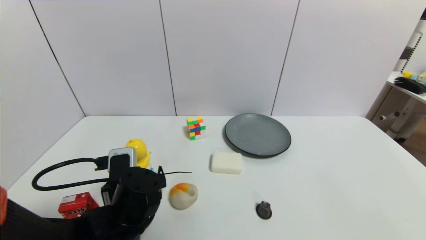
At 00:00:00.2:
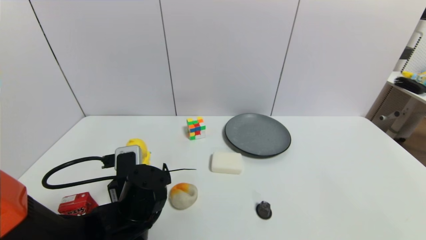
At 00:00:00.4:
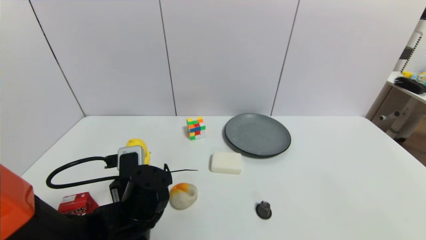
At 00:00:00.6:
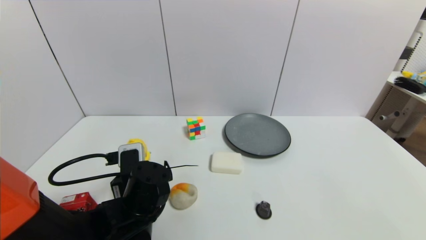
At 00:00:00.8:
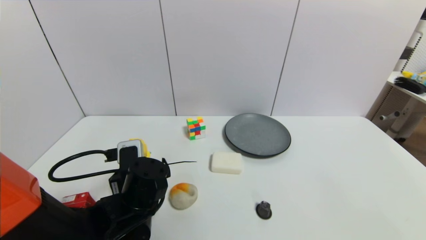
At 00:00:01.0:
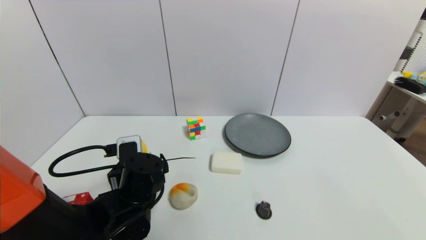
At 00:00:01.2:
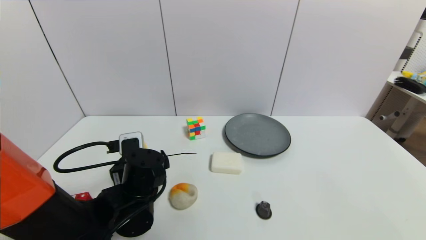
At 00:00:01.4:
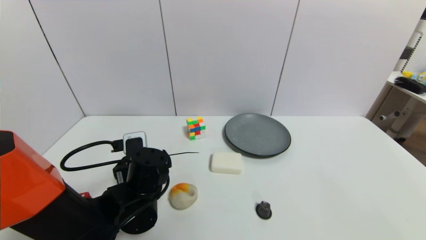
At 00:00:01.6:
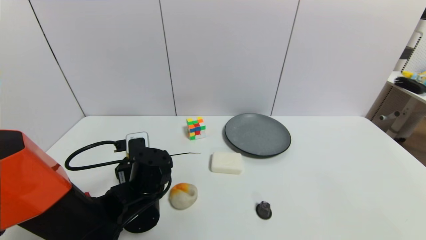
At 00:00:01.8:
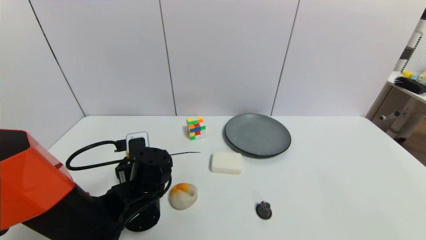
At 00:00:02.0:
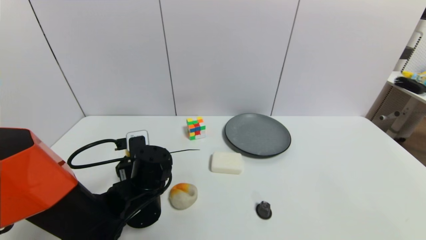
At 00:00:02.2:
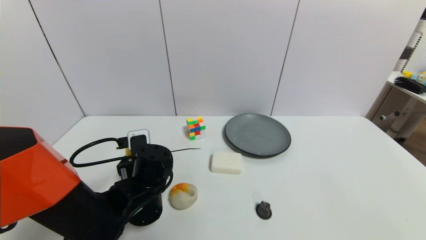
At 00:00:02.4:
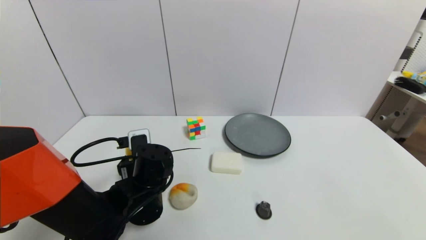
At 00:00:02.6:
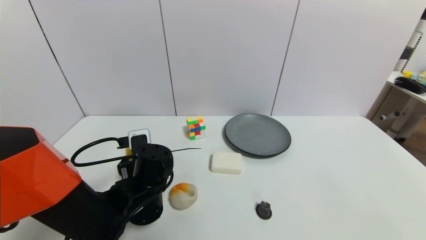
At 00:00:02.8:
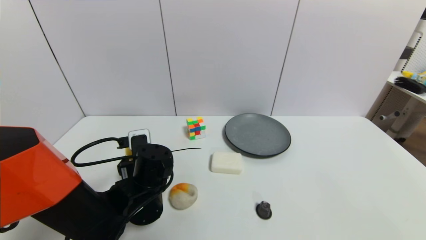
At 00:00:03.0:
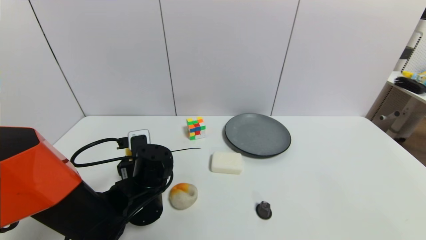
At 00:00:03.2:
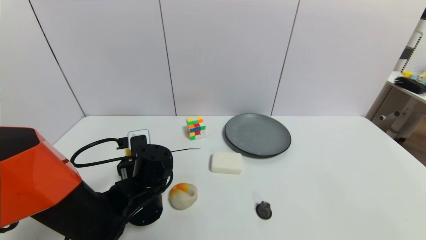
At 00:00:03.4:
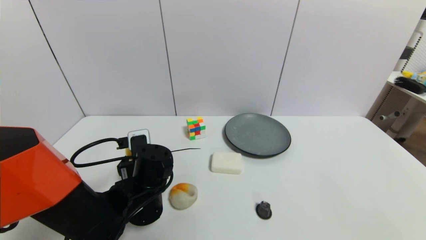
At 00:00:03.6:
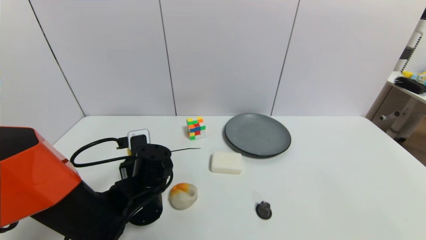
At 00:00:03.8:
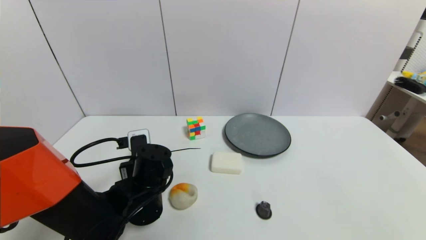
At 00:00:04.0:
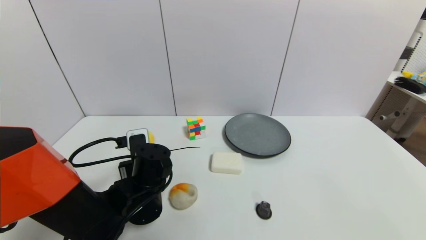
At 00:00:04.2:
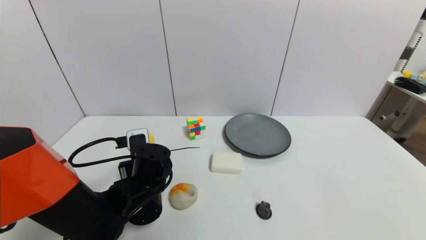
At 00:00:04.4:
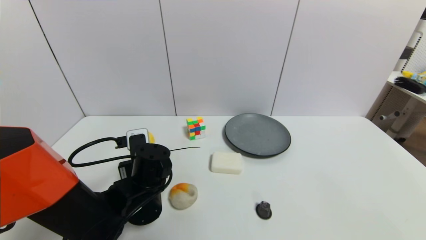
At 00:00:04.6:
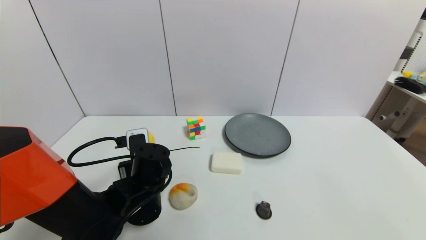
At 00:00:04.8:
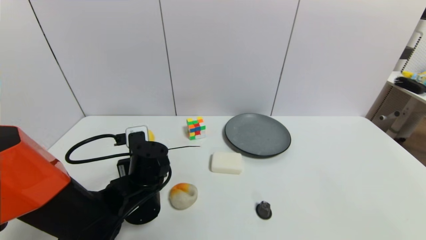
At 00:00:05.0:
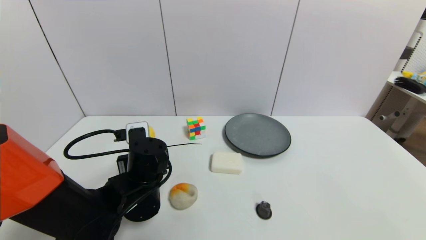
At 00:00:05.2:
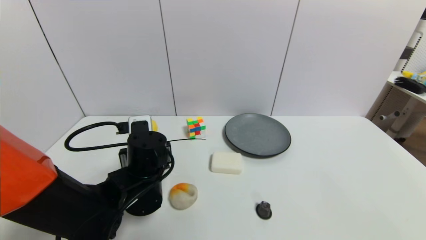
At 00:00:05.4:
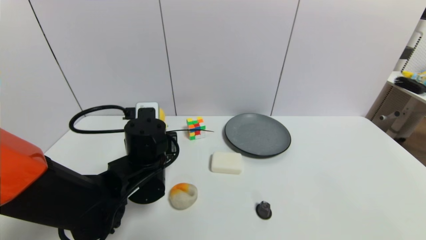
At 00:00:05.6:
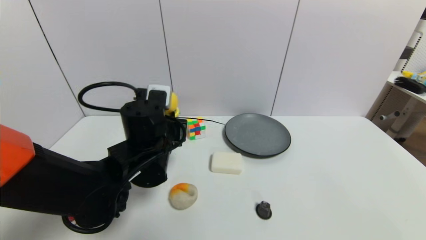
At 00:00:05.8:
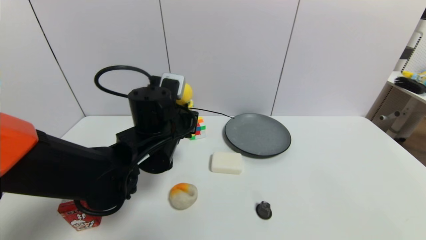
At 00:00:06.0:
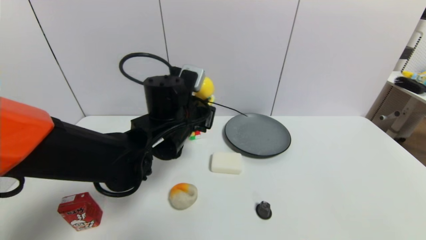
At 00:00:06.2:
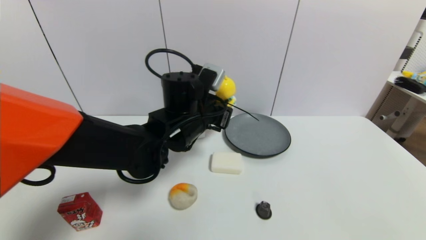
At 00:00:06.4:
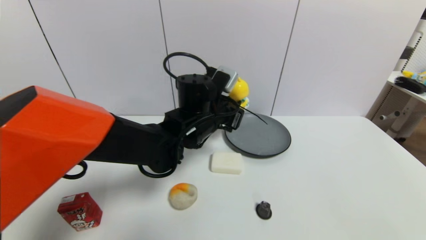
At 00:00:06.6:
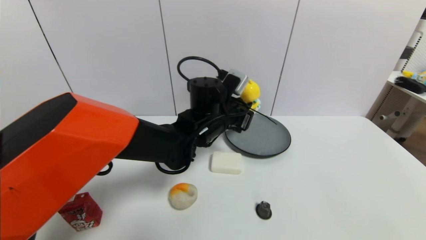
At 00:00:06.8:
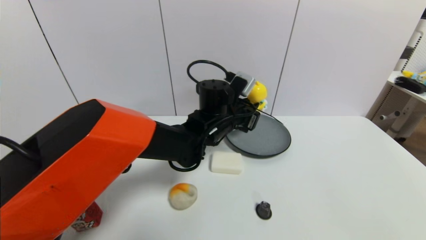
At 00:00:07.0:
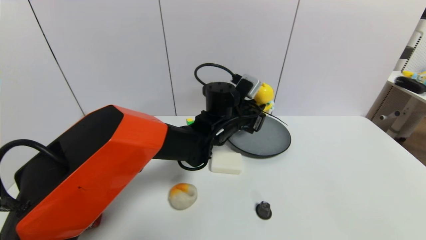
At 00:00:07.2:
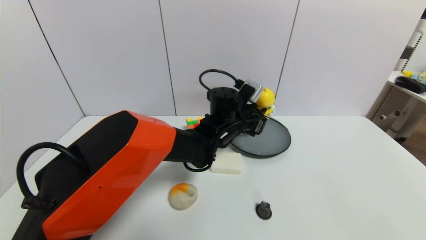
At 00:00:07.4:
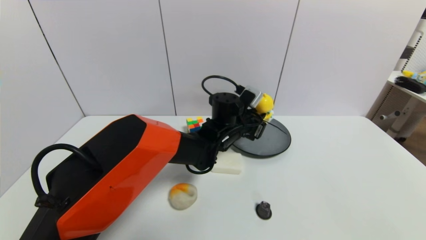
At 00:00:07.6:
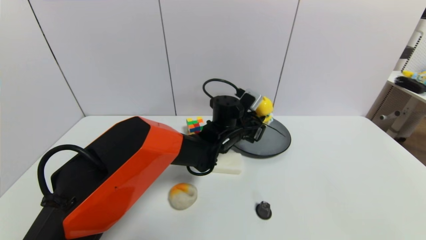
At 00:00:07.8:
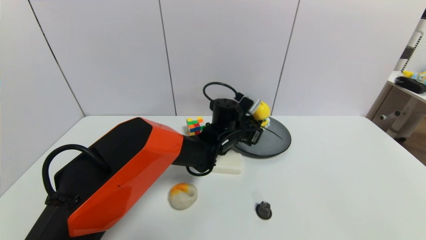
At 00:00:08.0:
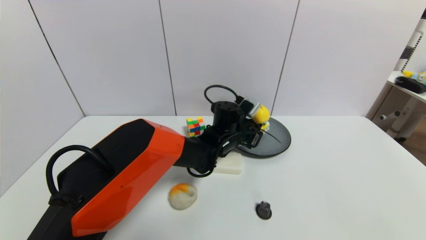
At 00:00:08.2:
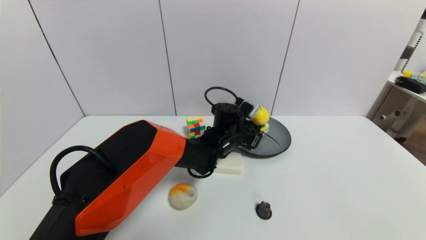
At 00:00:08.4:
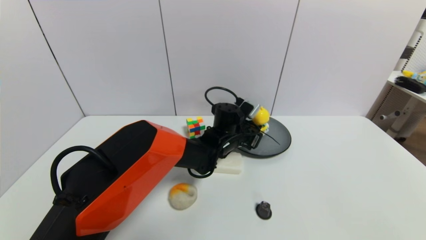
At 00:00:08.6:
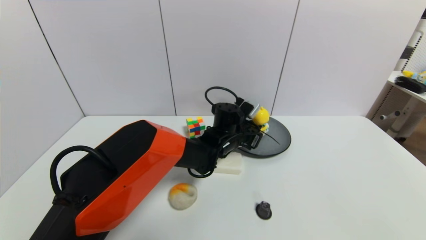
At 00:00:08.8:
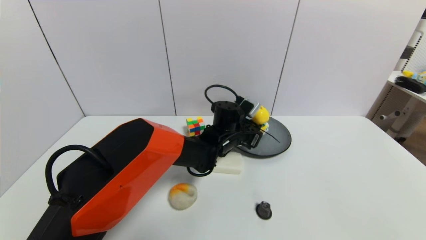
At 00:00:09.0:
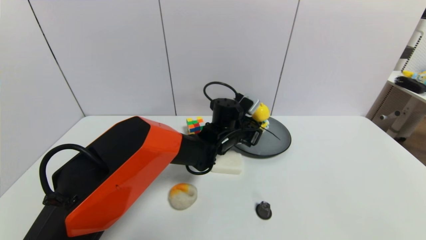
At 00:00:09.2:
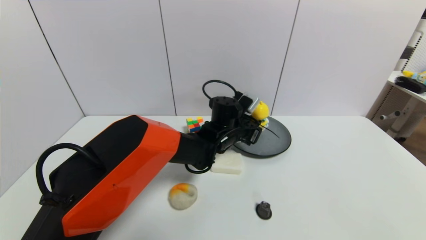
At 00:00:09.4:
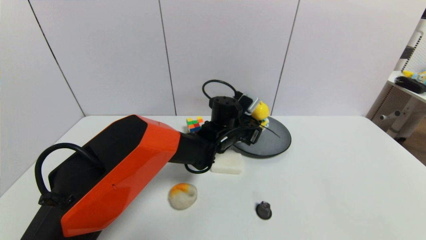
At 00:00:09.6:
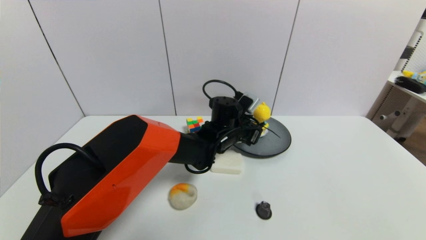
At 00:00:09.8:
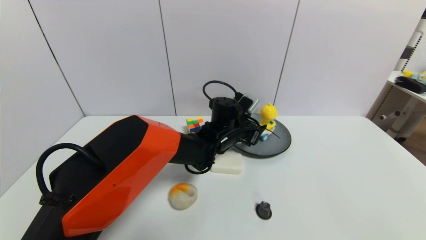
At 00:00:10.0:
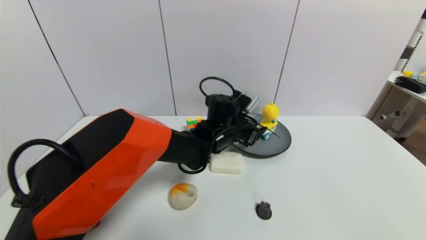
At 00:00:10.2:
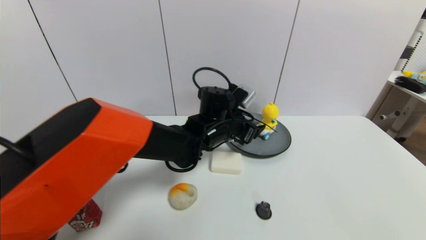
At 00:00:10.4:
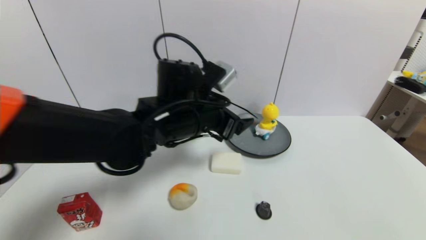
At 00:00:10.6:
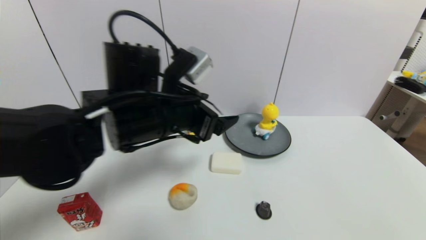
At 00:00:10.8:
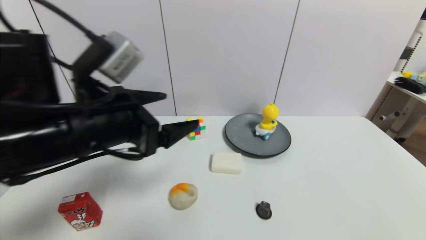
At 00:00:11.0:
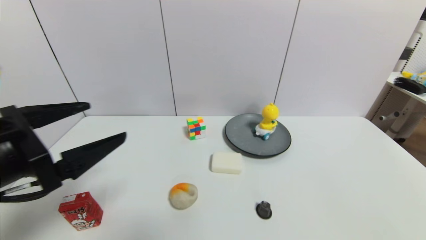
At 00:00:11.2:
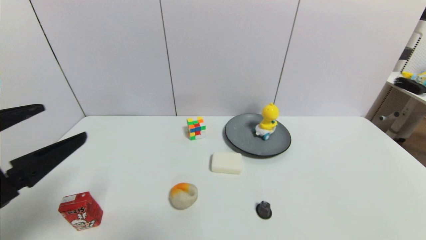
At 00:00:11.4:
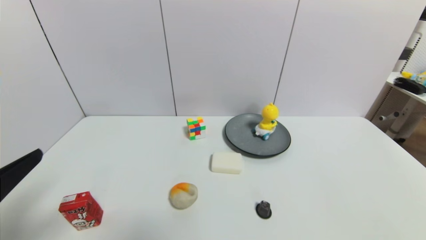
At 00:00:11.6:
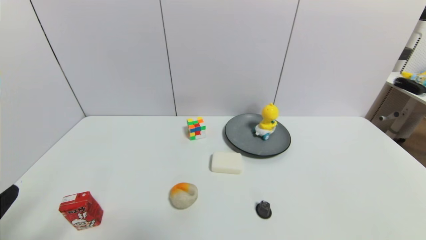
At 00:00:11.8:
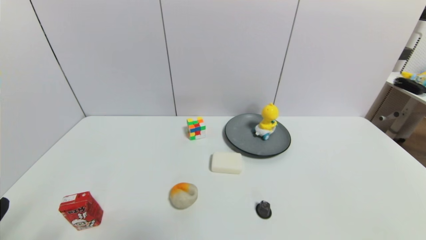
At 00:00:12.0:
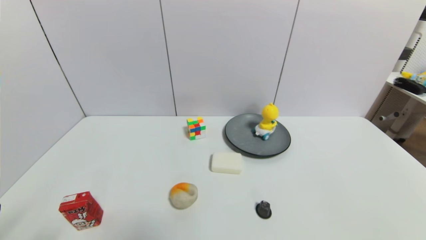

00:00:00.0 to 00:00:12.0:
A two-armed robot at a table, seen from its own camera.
Task of the whole recording: use a gripper to pick the target object and place on the gray plate.
Step, 00:00:00.0 to 00:00:04.4: Grasp the duck toy with the left gripper.
Step, 00:00:04.6 to 00:00:09.8: Place the duck toy on the gray plate with the left gripper.
00:00:00.0 to 00:00:01.6: The left gripper travels forward by roughly 5 cm.
00:00:01.6 to 00:00:03.0: Both grippers stay about where they are.
00:00:03.0 to 00:00:04.4: The left gripper closes its fingers.
00:00:04.4 to 00:00:06.0: The left gripper is displaced upward and to the right by roughly 15 cm.
00:00:06.0 to 00:00:07.6: The left gripper travels to the right, forward and downward by roughly 15 cm.
00:00:07.6 to 00:00:09.0: The grippers make only small movements.
00:00:09.0 to 00:00:10.4: The left gripper travels upward, backward and to the left by some 15 cm, and opens up.
00:00:10.4 to 00:00:12.0: The left gripper travels backward and to the left by about 40 cm.
